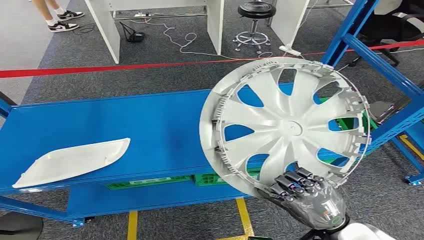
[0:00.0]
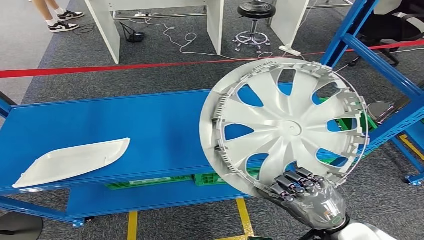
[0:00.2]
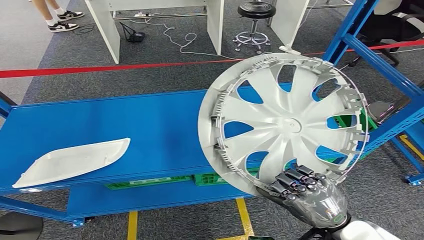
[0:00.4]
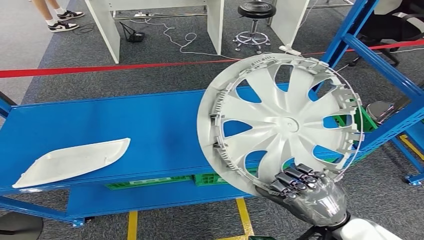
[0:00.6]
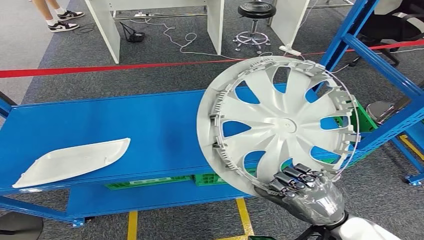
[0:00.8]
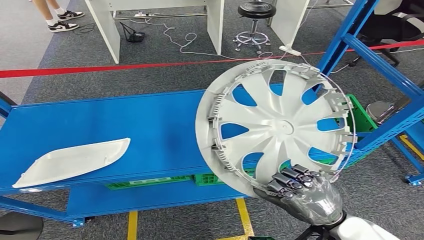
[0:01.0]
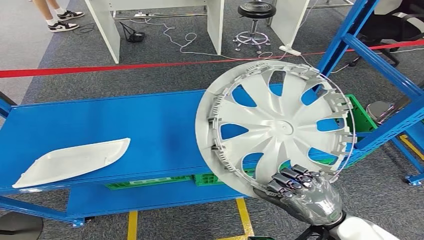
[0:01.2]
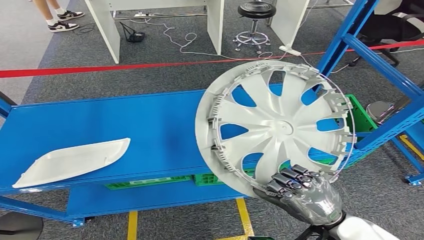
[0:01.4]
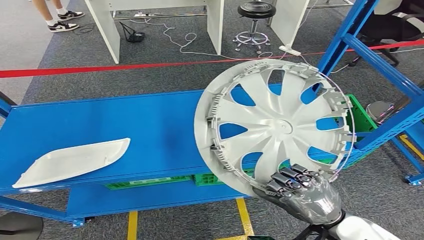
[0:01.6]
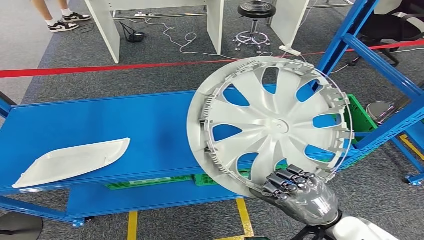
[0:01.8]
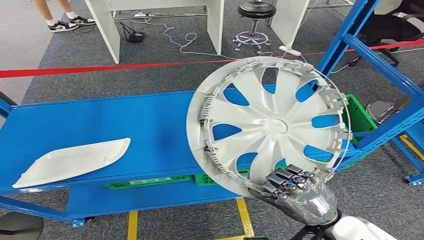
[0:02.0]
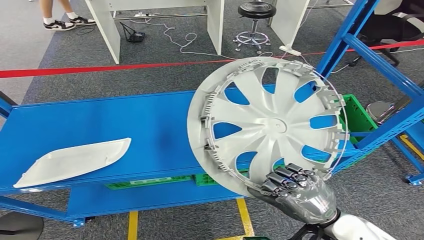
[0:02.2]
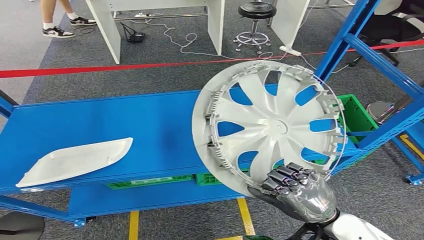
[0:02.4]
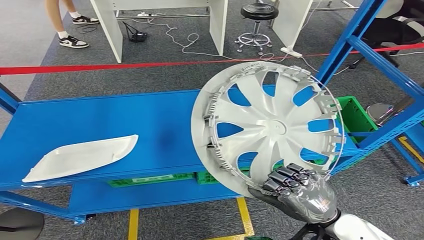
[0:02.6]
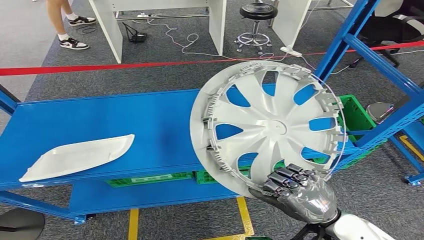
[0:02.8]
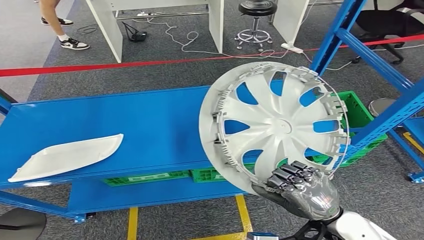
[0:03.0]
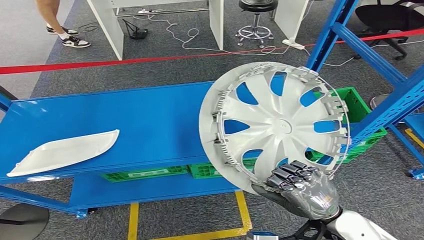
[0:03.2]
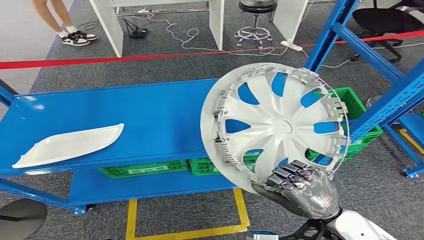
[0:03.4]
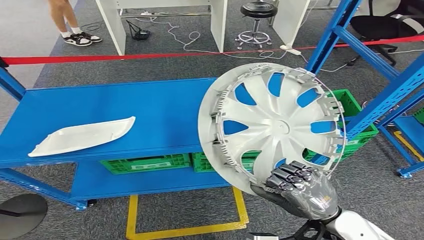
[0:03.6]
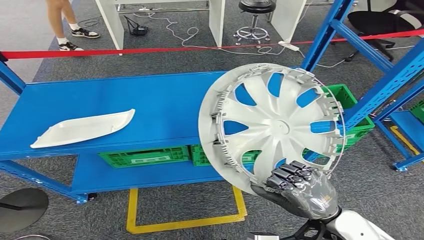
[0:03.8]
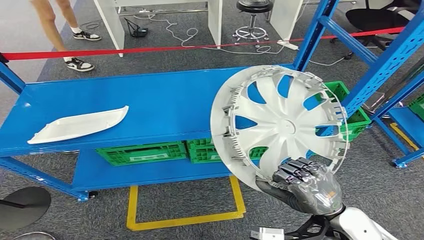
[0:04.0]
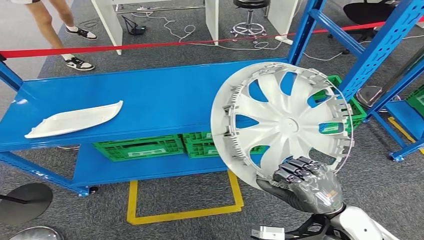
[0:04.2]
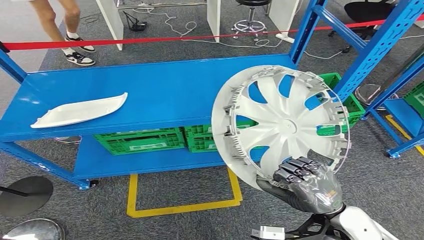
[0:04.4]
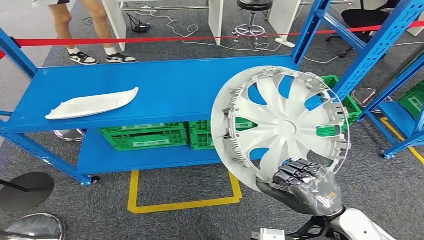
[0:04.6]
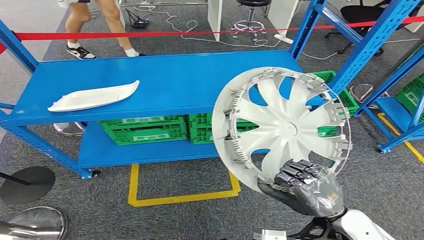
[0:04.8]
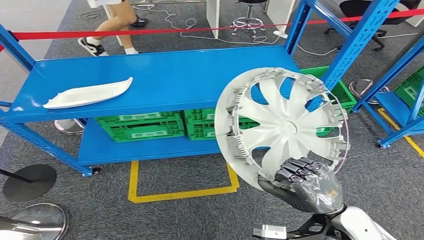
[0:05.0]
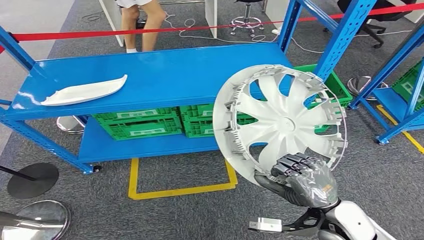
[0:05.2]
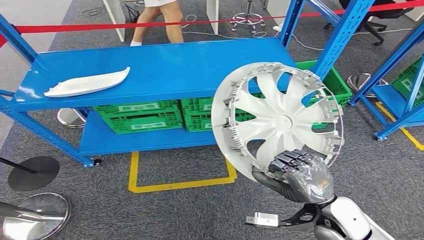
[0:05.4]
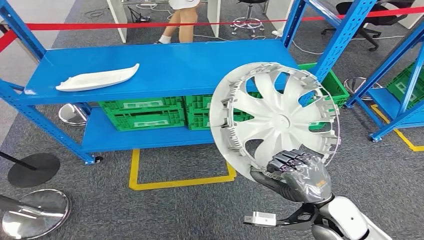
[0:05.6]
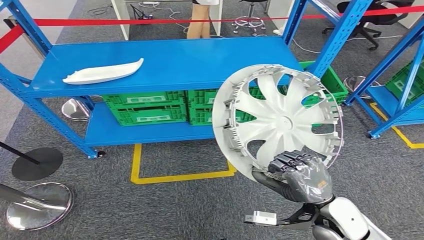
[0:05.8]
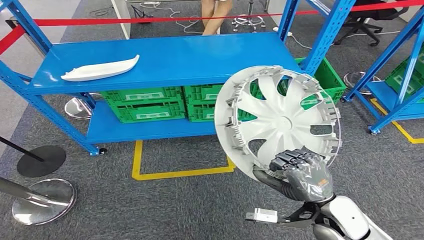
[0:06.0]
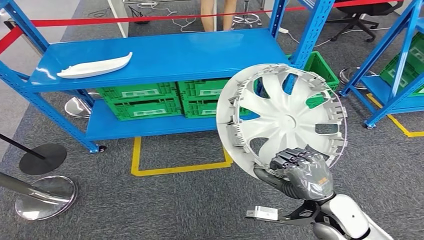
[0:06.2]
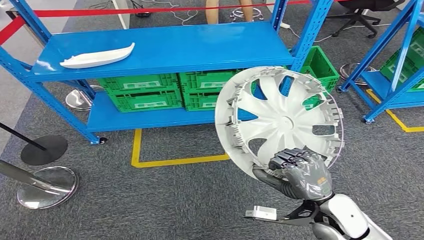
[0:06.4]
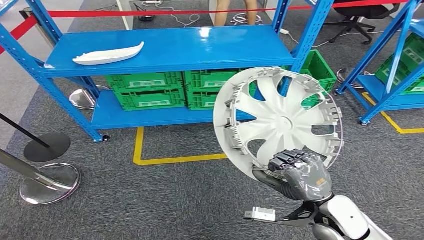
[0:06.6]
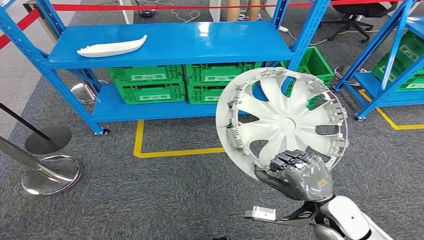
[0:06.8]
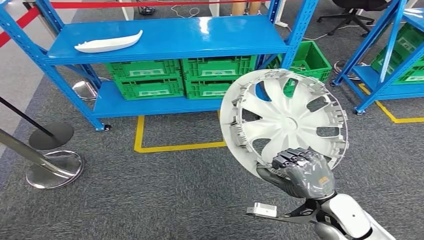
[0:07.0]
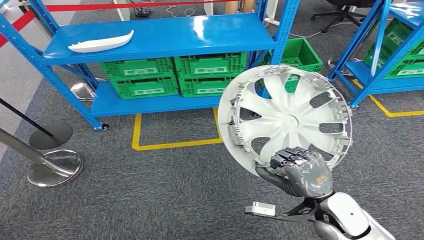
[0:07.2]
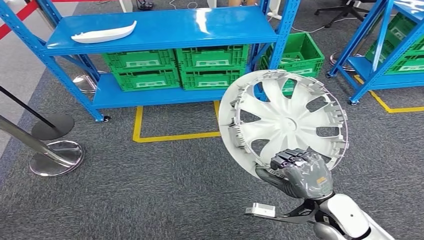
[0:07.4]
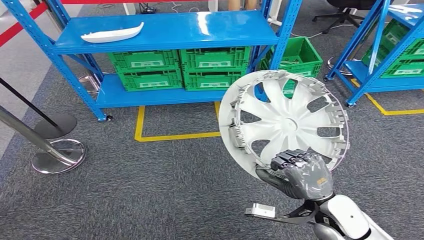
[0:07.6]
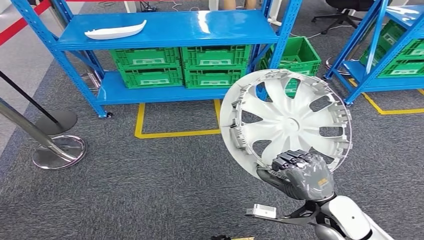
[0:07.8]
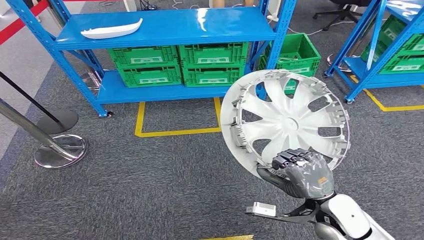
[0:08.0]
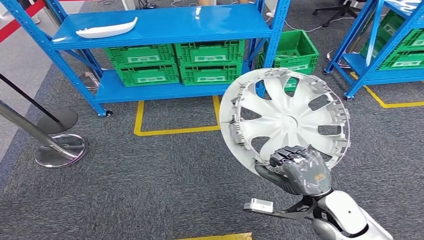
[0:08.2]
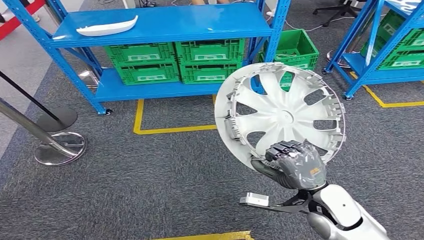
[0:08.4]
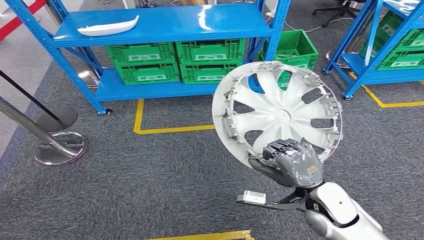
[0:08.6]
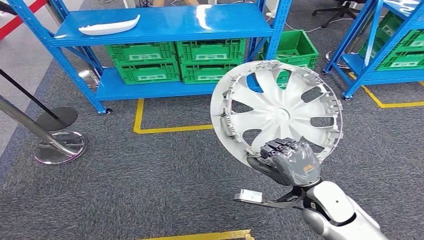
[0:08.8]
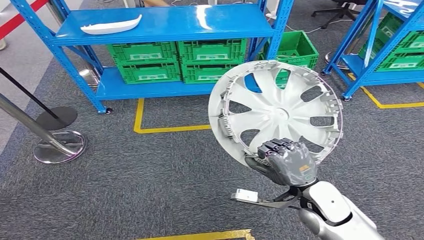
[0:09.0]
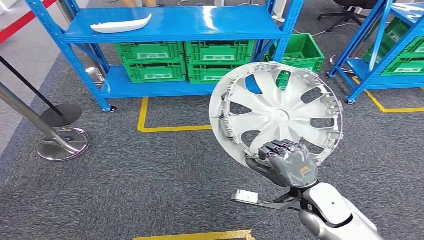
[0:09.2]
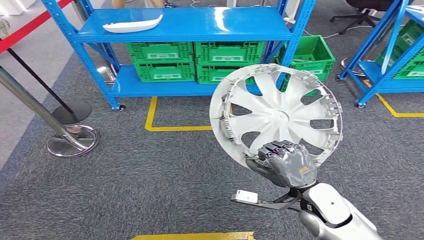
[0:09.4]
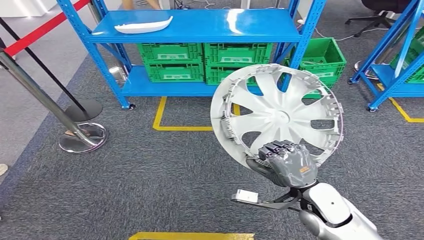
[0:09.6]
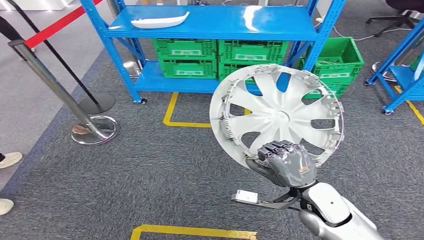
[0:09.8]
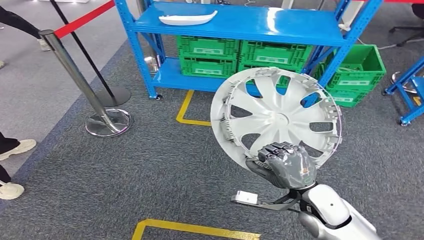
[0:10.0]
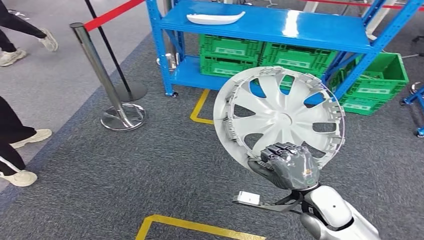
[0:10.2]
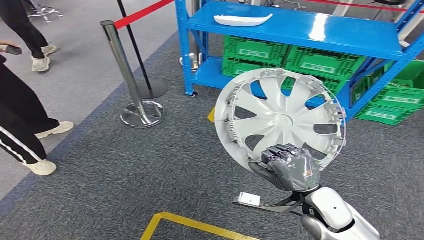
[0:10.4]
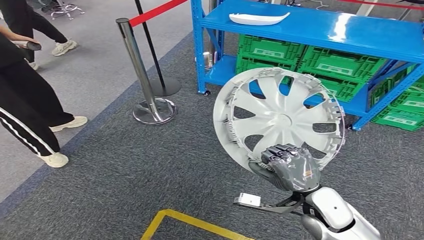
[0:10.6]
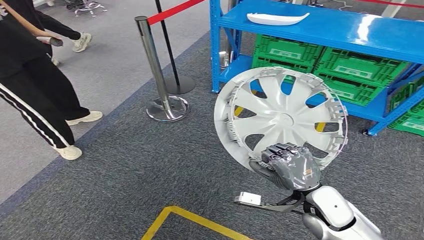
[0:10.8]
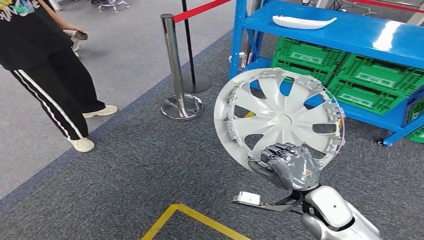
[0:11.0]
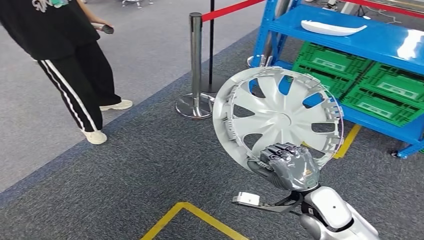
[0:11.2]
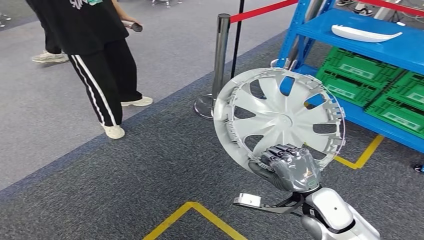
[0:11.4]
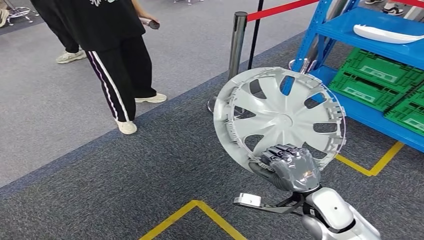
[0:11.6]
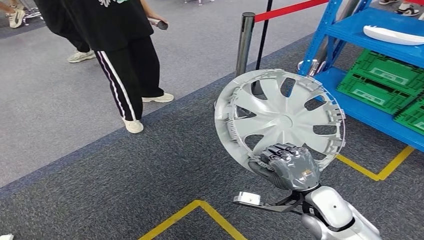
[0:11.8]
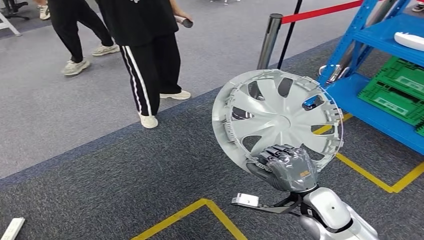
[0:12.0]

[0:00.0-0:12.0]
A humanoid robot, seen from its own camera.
Step, 0:00.0 to 0:02.0: Pick up the small parts from the shelf.

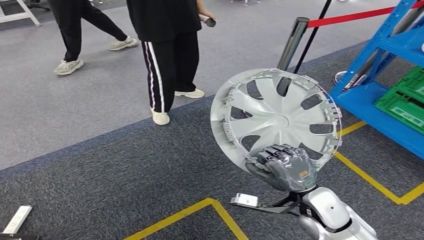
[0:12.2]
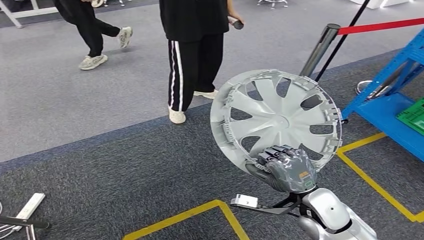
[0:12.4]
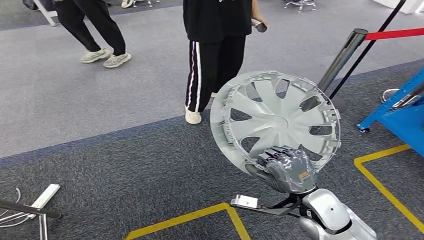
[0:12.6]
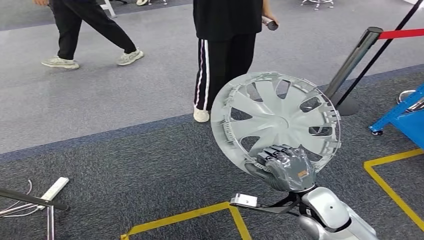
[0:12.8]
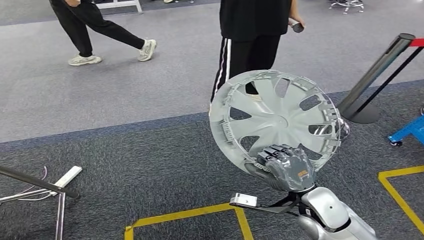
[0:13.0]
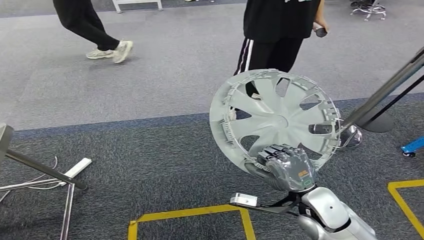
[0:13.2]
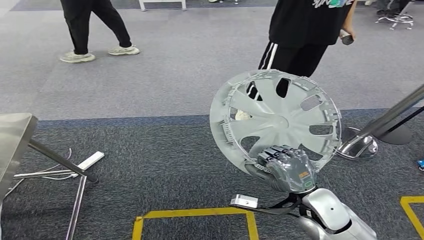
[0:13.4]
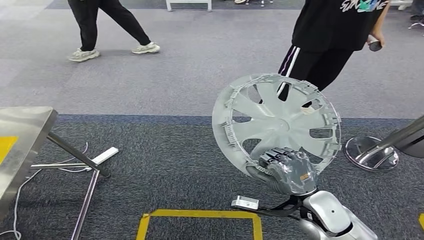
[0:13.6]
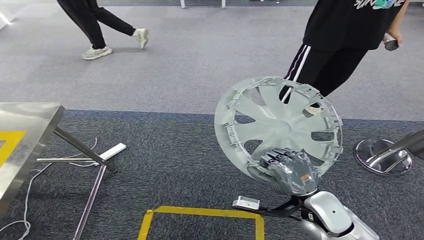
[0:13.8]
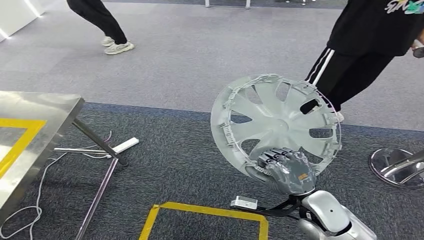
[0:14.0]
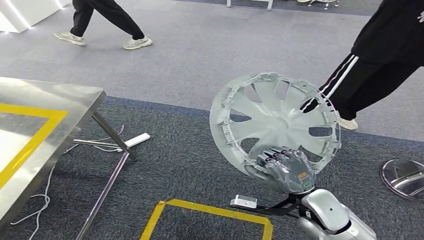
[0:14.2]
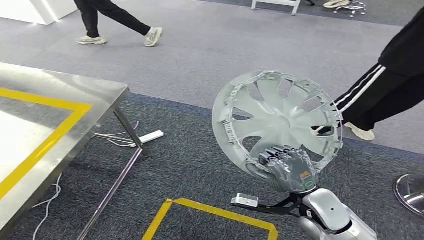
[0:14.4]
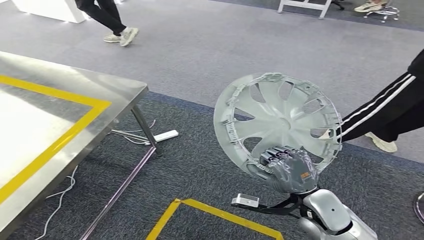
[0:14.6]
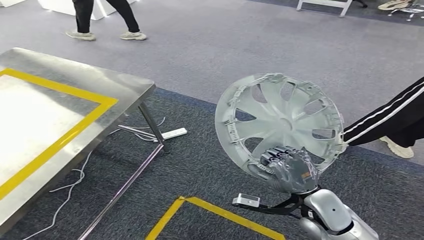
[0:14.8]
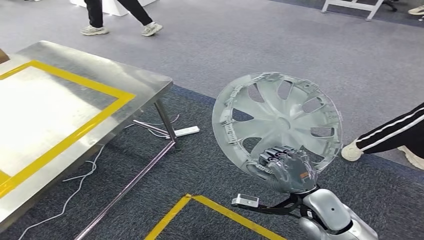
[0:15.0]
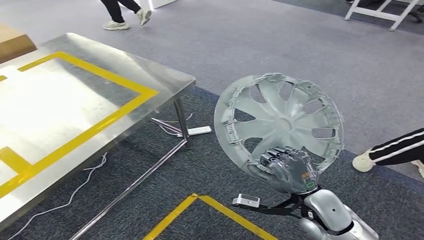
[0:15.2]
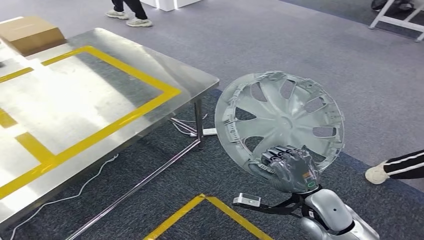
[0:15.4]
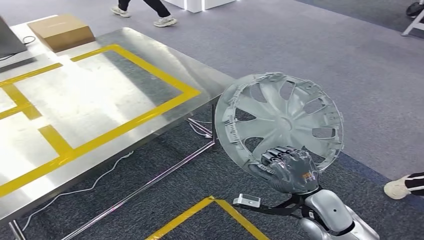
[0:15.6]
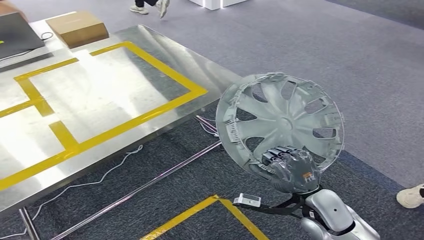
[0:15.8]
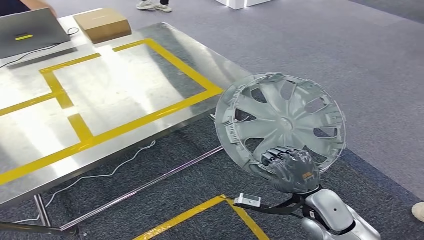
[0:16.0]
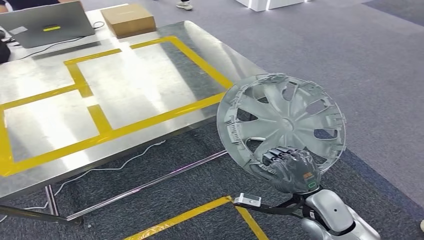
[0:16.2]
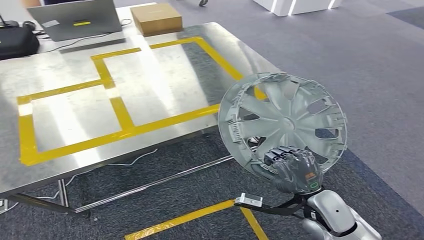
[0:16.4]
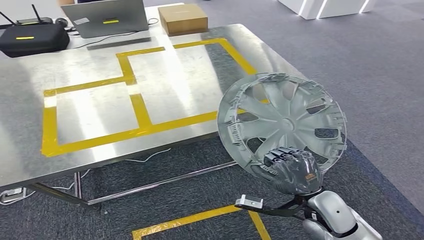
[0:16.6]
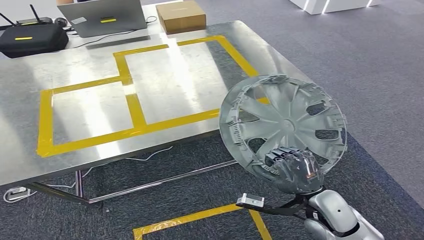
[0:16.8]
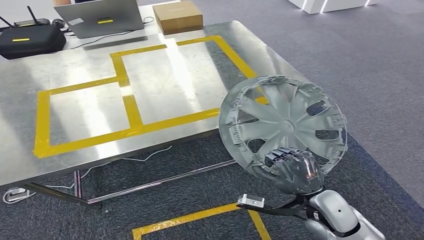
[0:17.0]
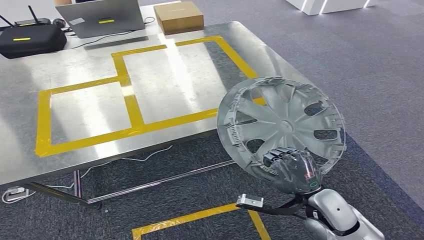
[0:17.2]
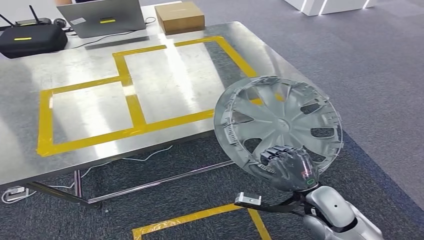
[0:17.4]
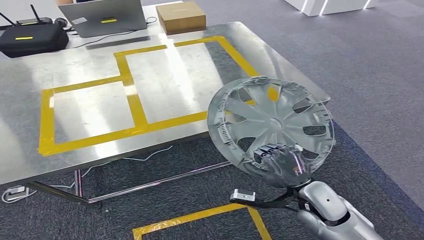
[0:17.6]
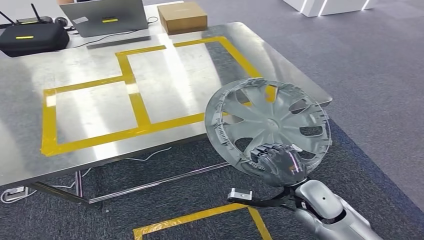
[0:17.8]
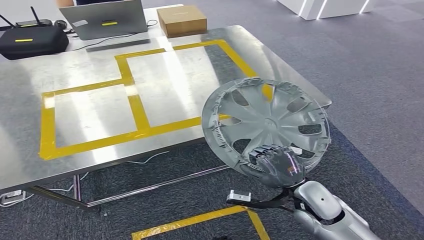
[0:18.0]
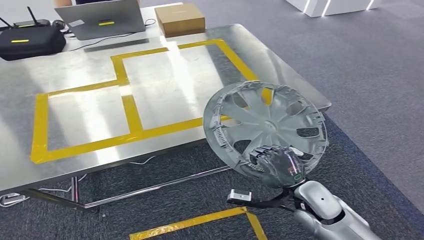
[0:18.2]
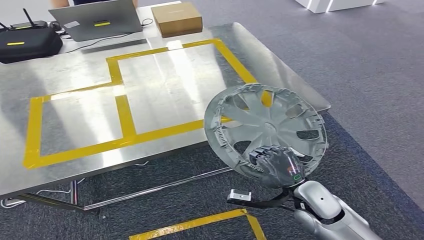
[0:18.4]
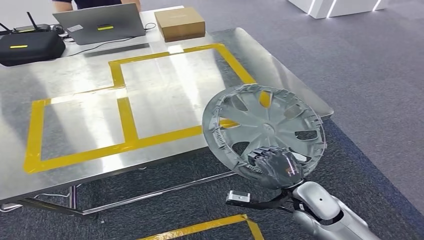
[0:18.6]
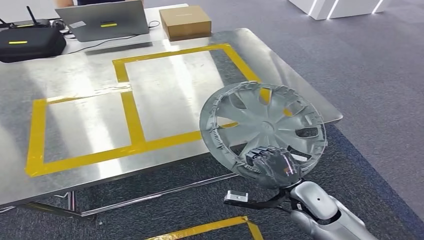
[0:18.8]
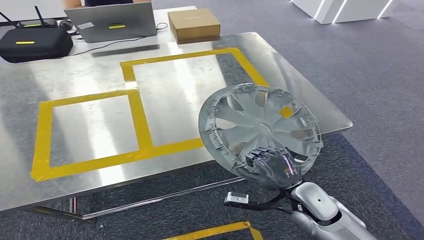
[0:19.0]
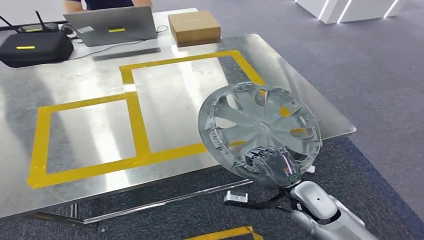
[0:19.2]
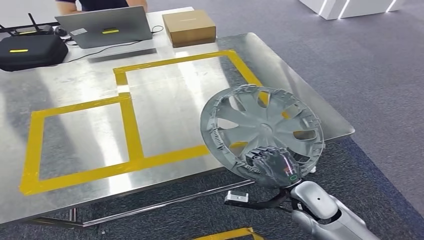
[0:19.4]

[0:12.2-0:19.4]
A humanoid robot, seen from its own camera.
Step, 0:12.2 to 0:19.0: Move the small parts to the workbench.
0:16.6 to 0:18.0: The hands move only a little.
